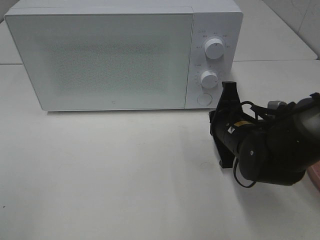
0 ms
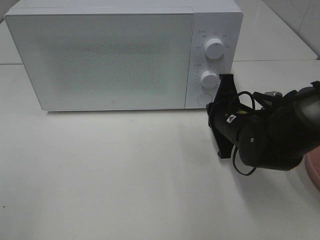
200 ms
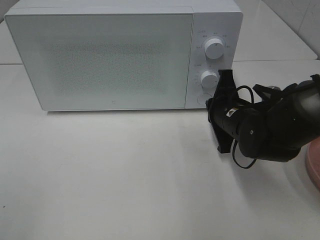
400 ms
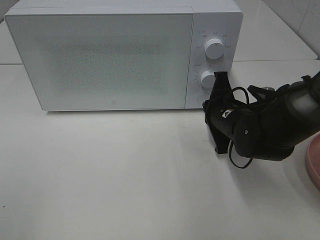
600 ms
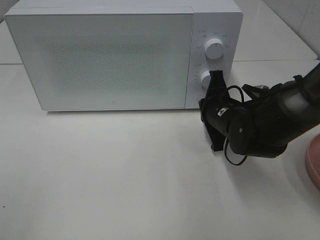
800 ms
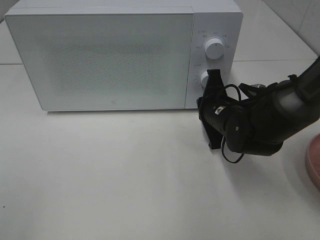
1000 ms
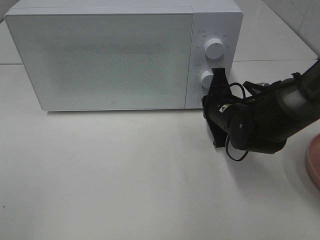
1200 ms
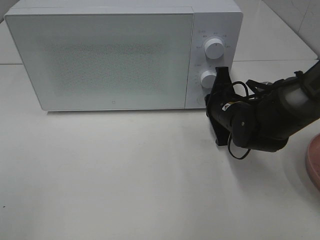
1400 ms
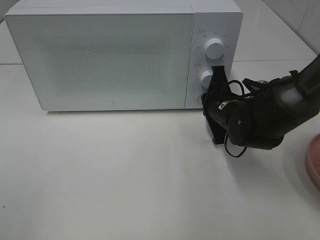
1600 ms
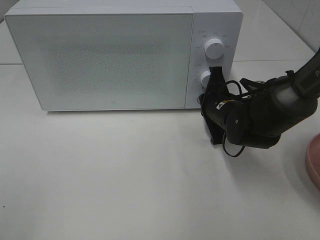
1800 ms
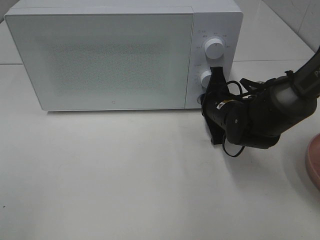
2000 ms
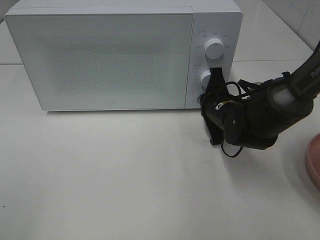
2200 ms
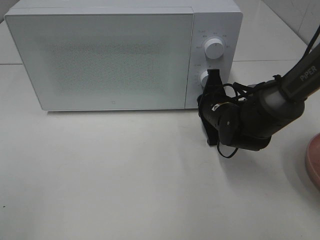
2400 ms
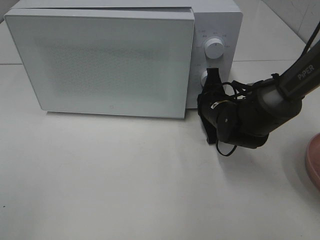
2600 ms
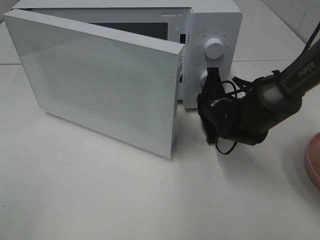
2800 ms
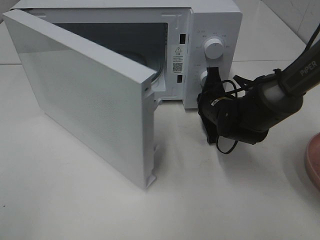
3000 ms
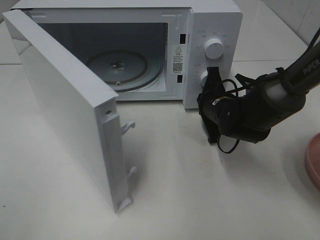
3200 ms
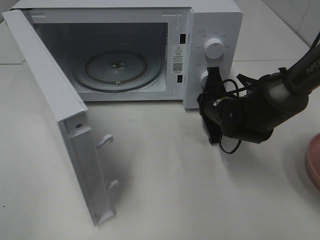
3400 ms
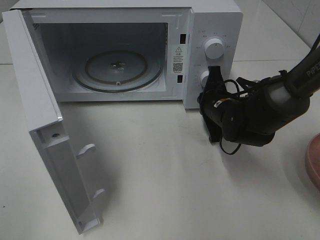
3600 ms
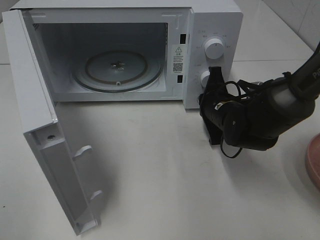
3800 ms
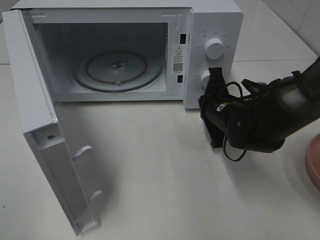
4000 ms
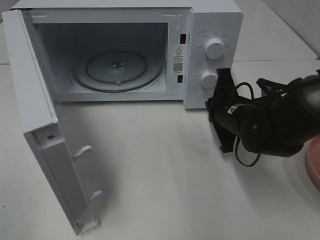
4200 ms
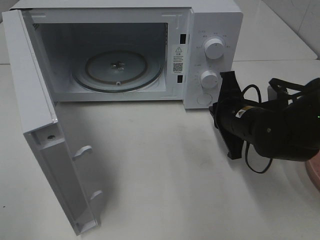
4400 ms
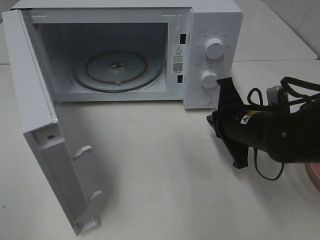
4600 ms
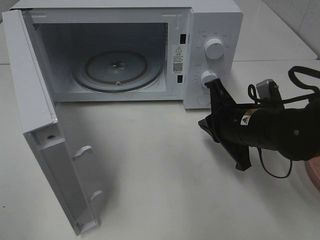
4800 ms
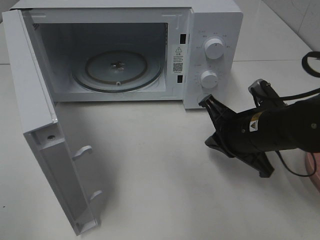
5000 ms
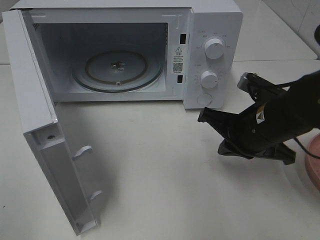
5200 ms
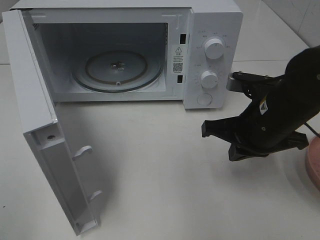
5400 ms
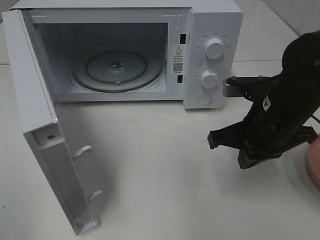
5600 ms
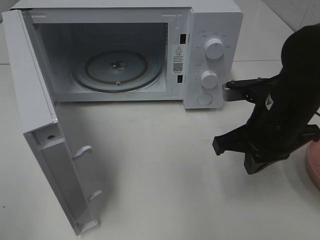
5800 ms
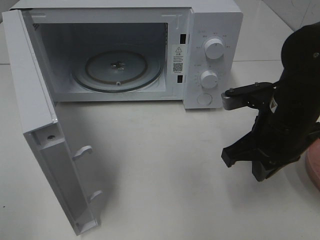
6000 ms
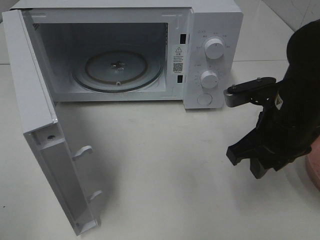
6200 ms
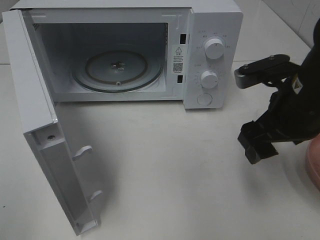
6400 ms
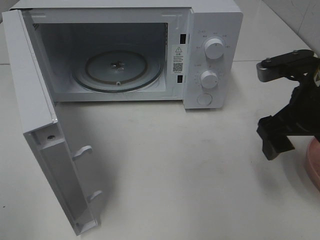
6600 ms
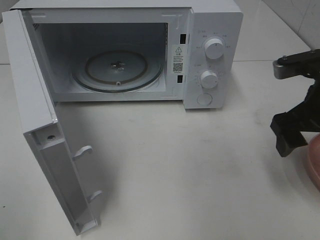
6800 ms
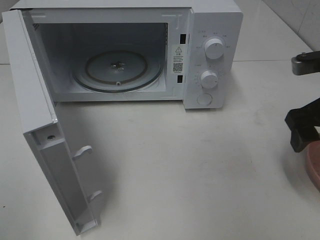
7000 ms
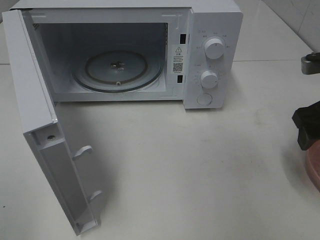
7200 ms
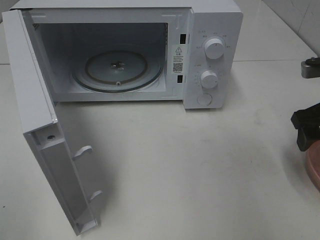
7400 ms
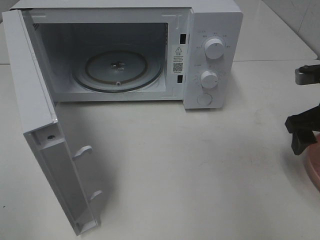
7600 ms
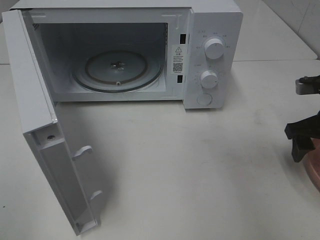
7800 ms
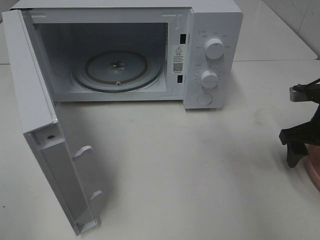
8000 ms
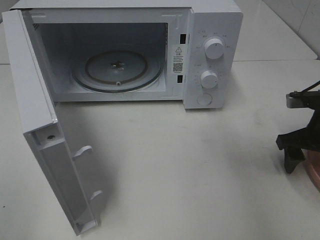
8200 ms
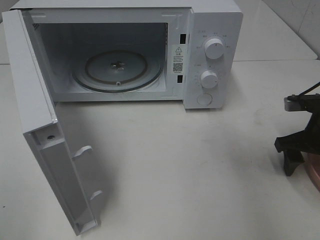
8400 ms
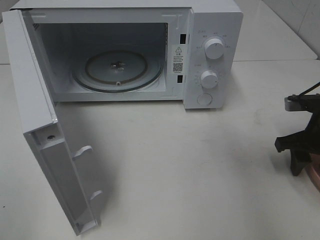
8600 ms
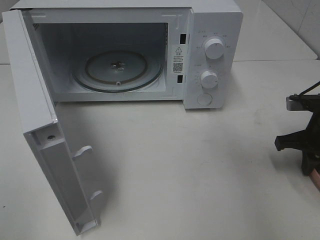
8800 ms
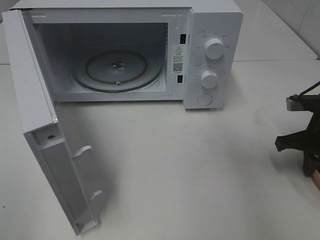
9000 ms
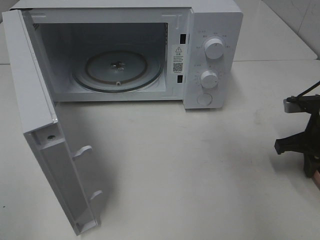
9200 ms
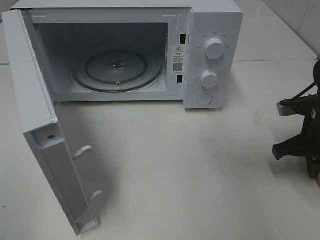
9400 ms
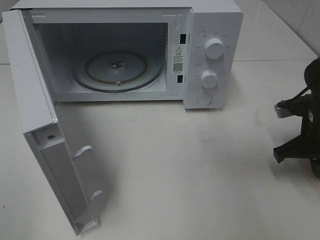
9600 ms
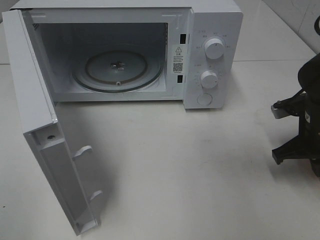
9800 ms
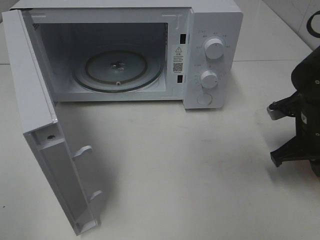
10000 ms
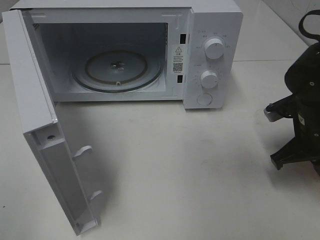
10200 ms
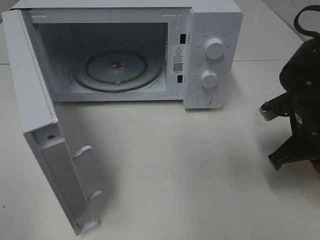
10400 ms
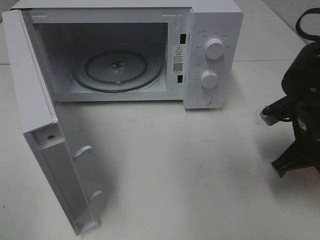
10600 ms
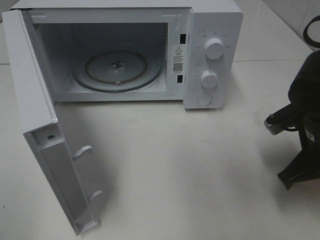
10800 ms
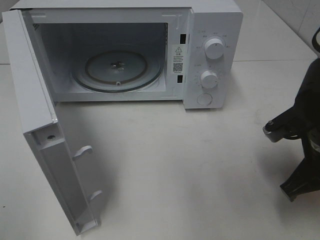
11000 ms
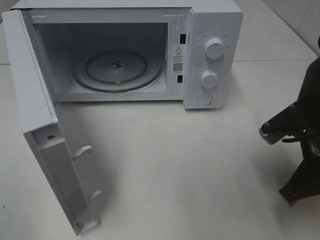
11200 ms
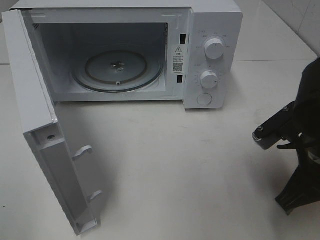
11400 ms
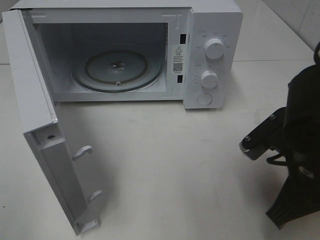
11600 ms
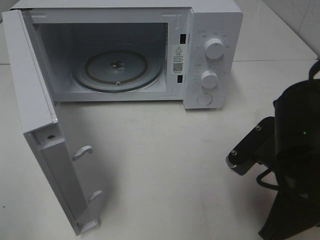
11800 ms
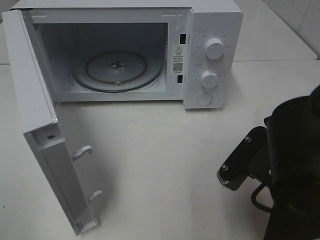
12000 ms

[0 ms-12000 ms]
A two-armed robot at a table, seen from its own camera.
Task of the whole recording: Heat the burger.
Step, 0 ms to 4400 ms: Right hand: press the switch.
Step, 4600 ms to 10000 ms: Right hand: grab the plate with the hamburger.
0 ms to 1600 ms: The right gripper heads forward, covering approximately 5 cm.
3000 ms to 4400 ms: The right gripper is displaced backward by roughly 5 cm.
4400 ms to 6000 ms: The right gripper heads upward and backward, covering approximately 10 cm.
6000 ms to 7600 ms: The right gripper is displaced to the right by some 10 cm, and opens.
7600 ms to 9000 ms: The right gripper heads downward, covering about 5 cm, and closes up.
9000 ms to 10400 ms: The right gripper moves to the left, about 5 cm.
10400 ms to 12000 ms: The right gripper is displaced backward and to the left by roughly 15 cm.

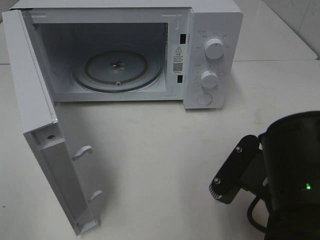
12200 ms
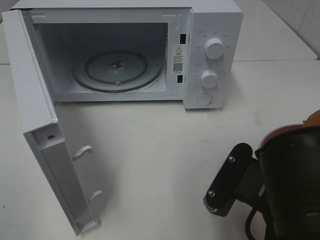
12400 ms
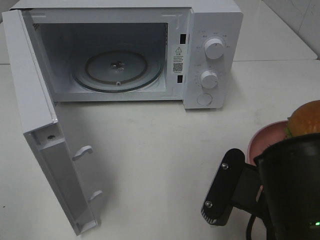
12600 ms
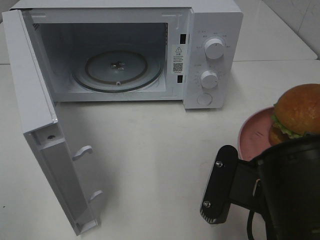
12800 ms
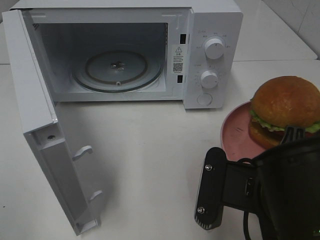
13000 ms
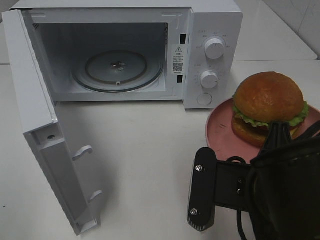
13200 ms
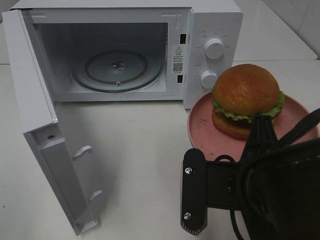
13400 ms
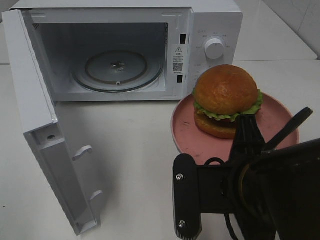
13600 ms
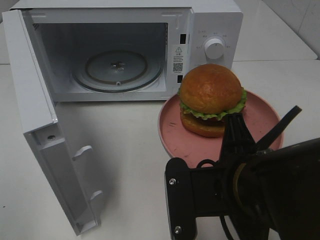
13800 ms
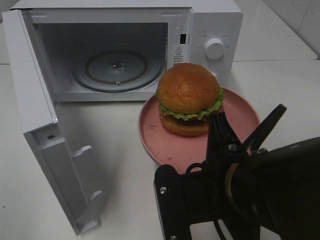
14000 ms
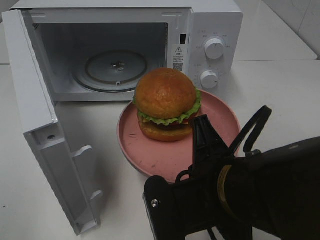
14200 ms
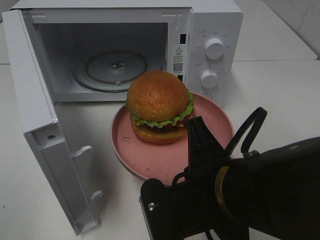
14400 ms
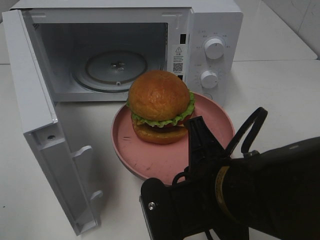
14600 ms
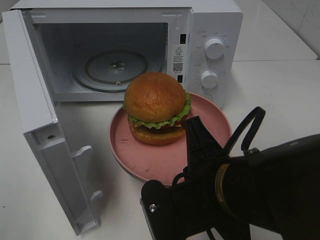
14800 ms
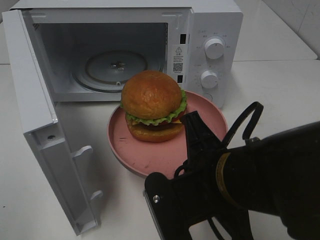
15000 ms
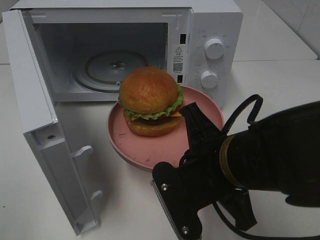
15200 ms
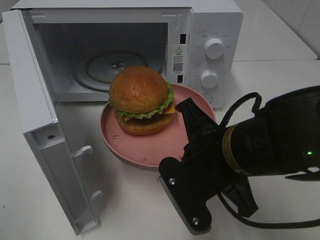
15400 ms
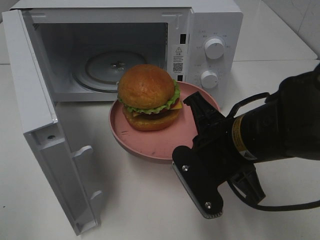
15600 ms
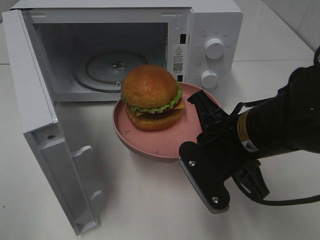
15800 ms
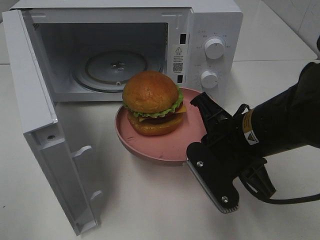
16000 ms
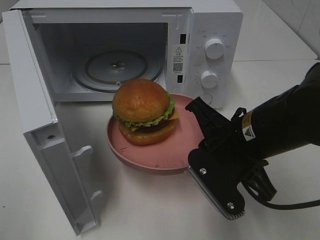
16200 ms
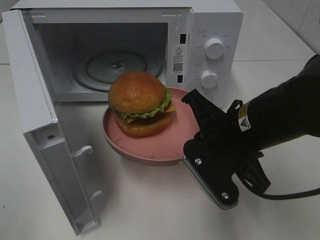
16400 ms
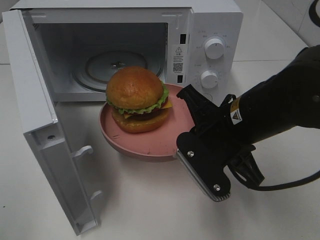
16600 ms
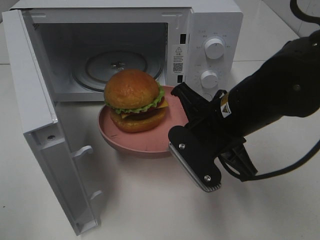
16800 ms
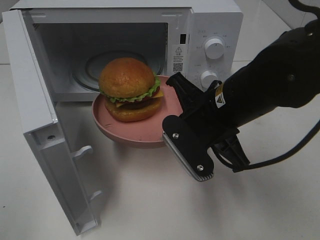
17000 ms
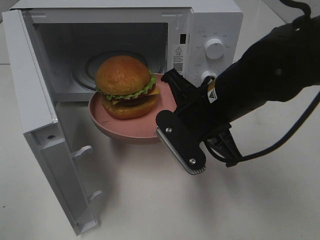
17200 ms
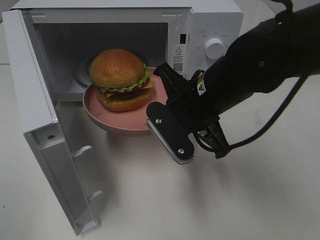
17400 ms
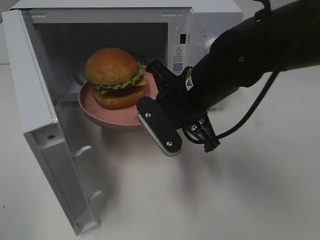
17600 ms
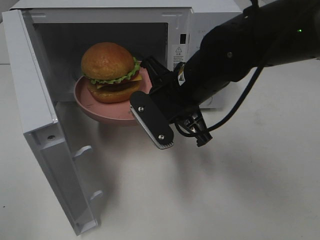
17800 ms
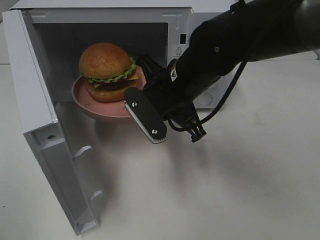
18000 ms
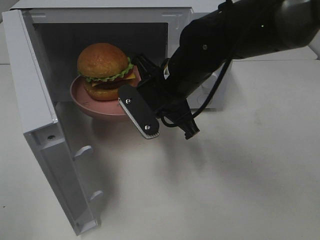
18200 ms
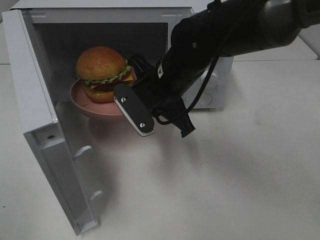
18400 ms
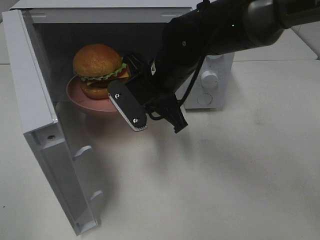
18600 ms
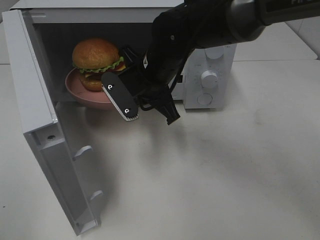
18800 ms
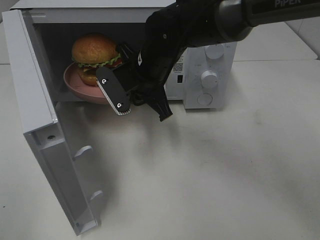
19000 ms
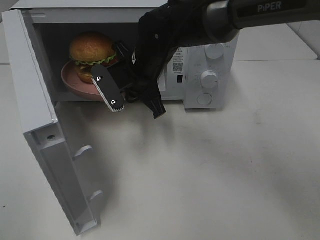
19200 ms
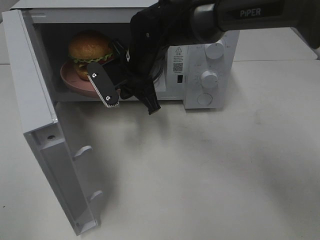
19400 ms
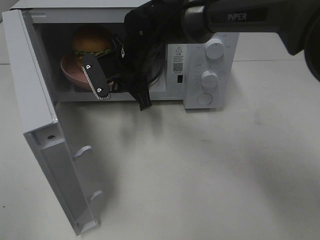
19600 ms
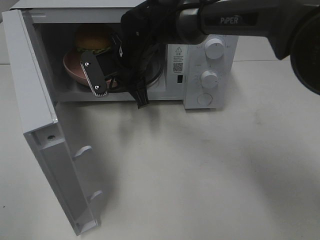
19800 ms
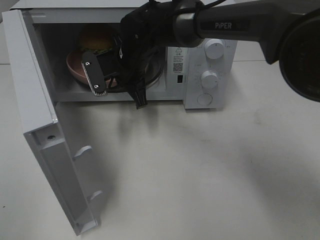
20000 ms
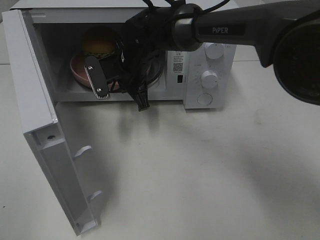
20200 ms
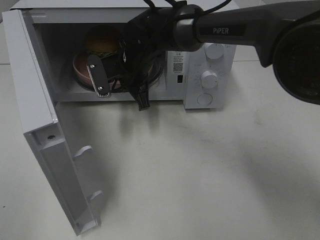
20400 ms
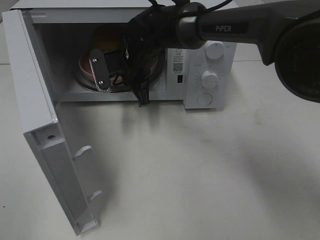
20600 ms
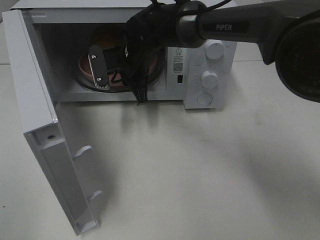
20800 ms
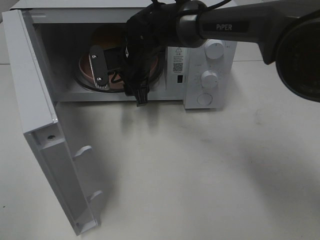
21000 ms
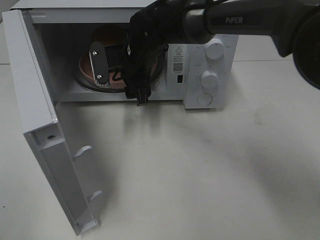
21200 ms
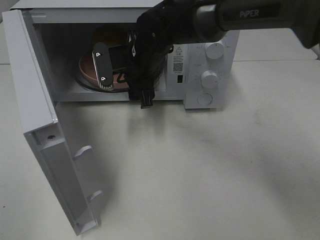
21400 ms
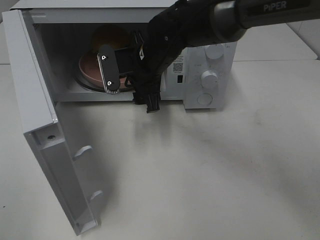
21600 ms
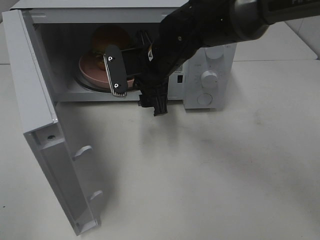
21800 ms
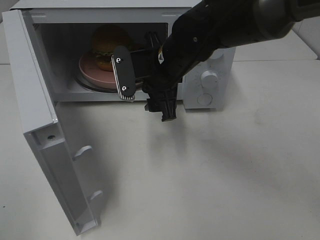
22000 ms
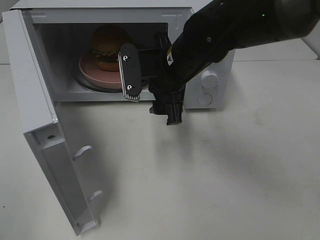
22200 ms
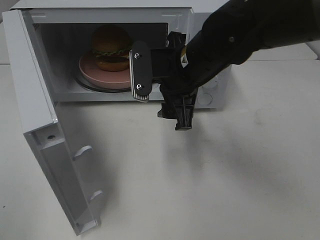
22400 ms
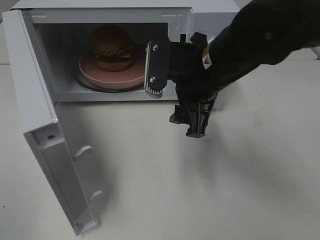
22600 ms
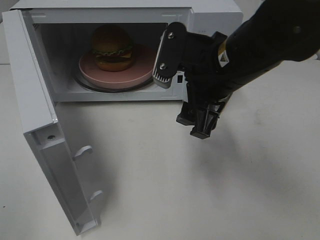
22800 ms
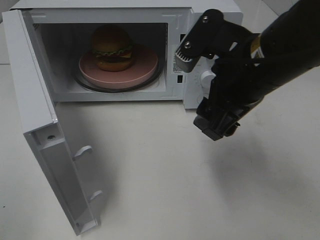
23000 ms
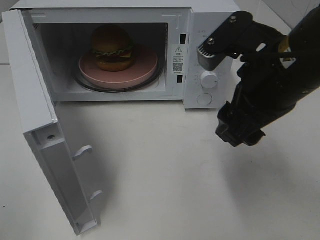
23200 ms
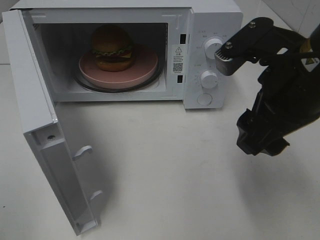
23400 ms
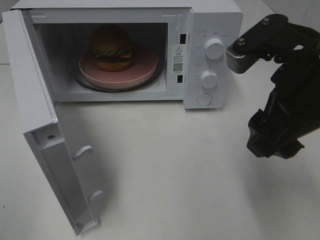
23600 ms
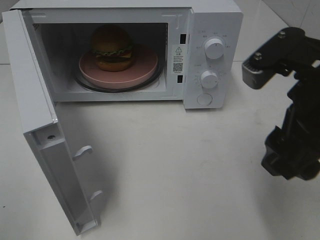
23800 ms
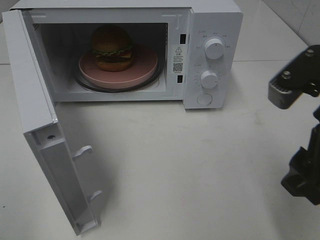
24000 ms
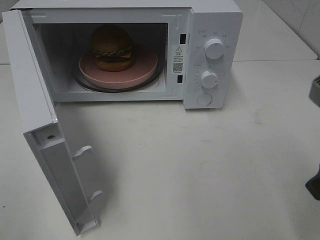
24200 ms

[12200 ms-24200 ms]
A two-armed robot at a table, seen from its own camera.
Task of the whole recording: Heat the burger.
Step, 12200 ms to 21600 ms: Right hand: place the plate in the microwave.
15200 ms to 16600 ms: The right gripper moves forward, approximately 5 cm.
16600 ms to 18200 ms: The right gripper heads forward and to the left, covering approximately 10 cm.
18200 ms to 19800 ms: The right gripper travels forward and to the left by some 10 cm.
19800 ms to 21200 ms: The right gripper opens up.
21200 ms to 22600 ms: The right gripper travels backward, to the right and upward by approximately 20 cm.
22600 ms to 24200 ms: The right gripper is displaced to the right and backward by some 20 cm.
